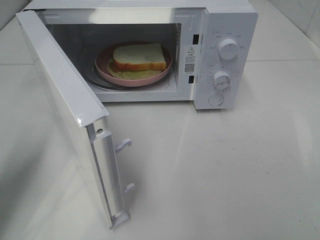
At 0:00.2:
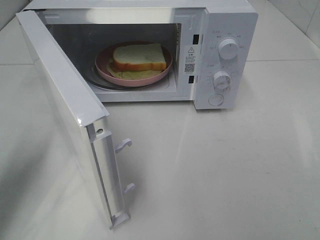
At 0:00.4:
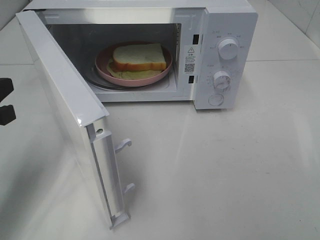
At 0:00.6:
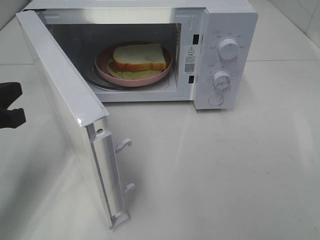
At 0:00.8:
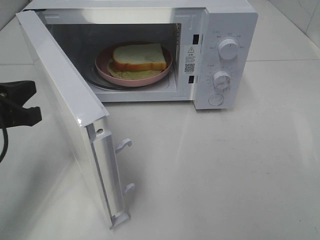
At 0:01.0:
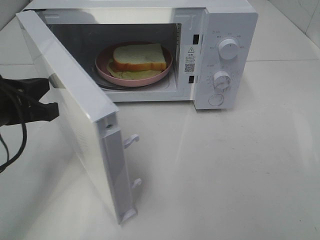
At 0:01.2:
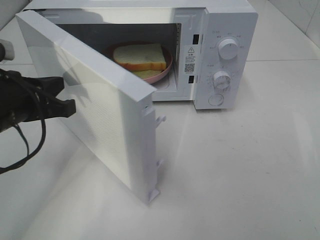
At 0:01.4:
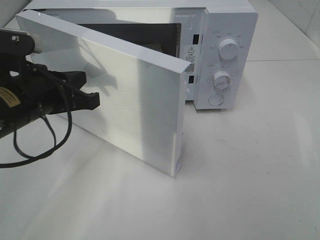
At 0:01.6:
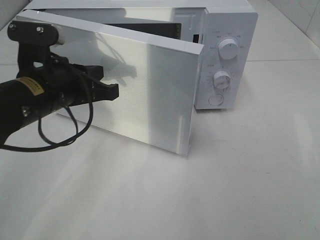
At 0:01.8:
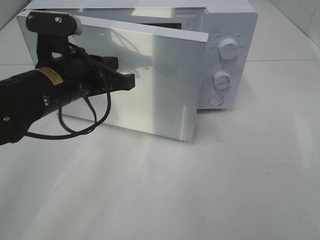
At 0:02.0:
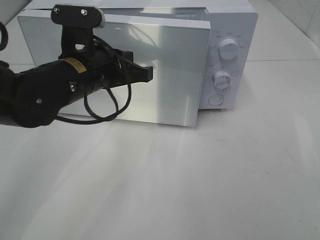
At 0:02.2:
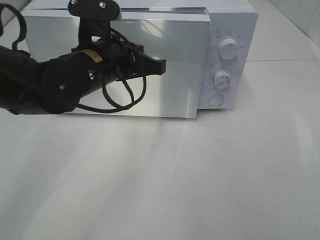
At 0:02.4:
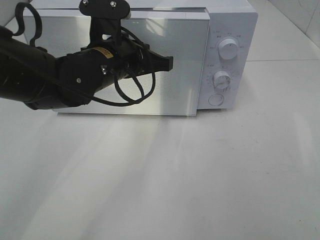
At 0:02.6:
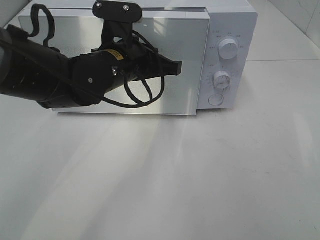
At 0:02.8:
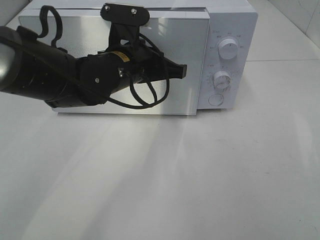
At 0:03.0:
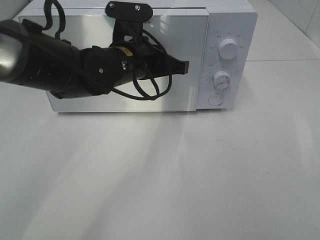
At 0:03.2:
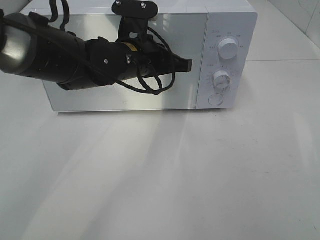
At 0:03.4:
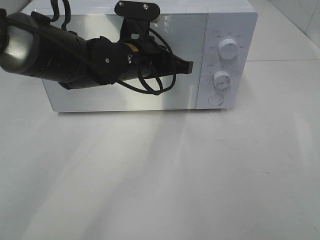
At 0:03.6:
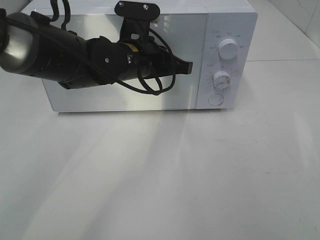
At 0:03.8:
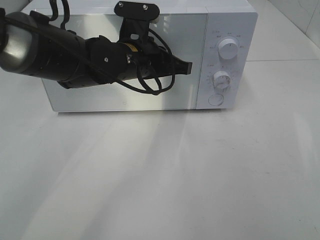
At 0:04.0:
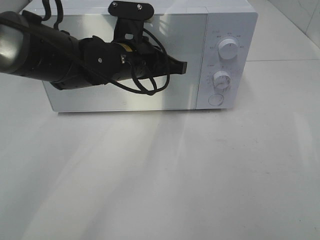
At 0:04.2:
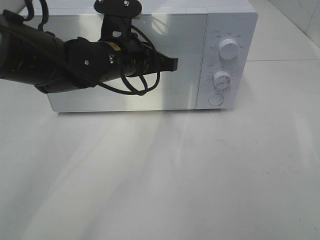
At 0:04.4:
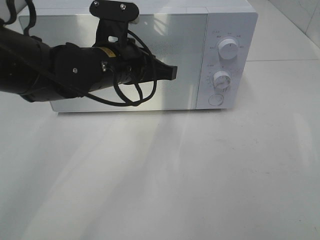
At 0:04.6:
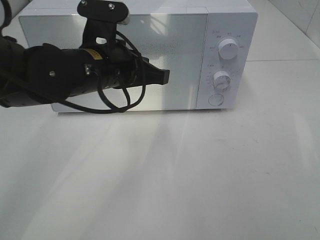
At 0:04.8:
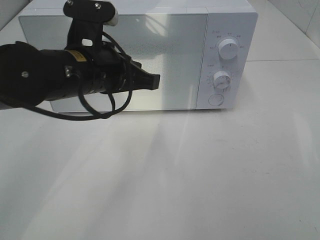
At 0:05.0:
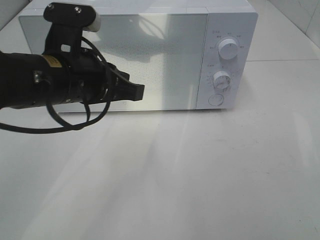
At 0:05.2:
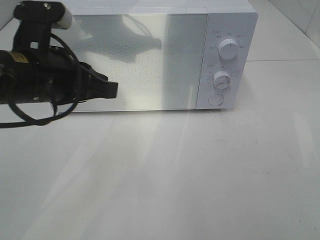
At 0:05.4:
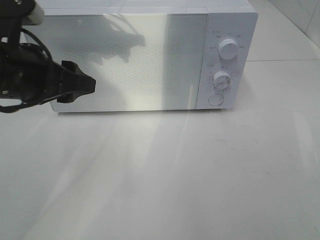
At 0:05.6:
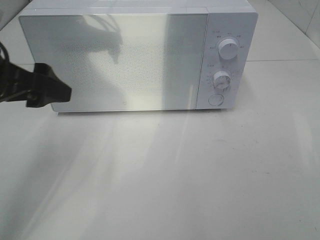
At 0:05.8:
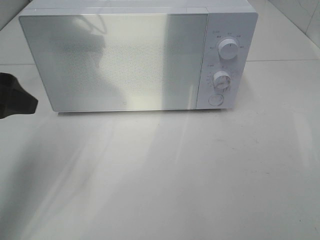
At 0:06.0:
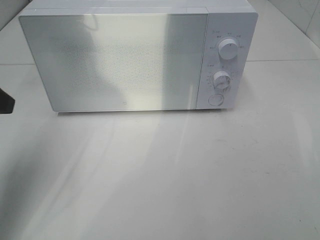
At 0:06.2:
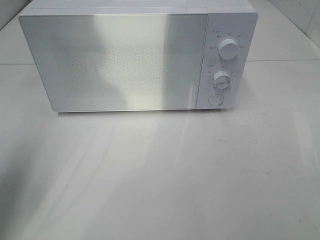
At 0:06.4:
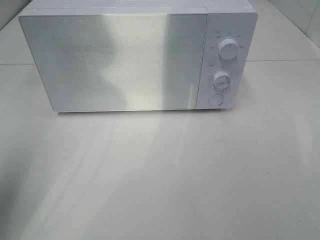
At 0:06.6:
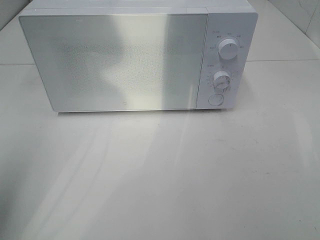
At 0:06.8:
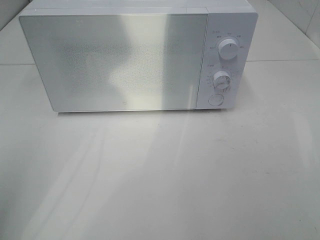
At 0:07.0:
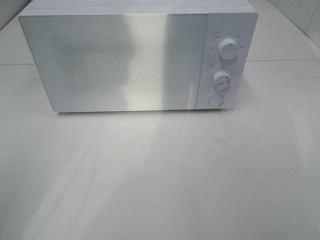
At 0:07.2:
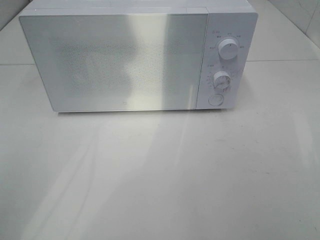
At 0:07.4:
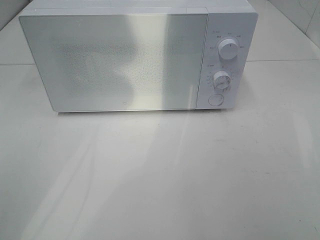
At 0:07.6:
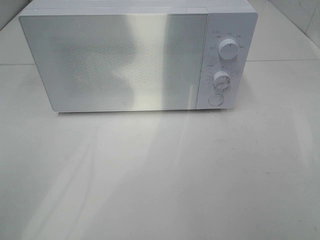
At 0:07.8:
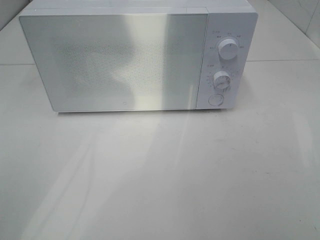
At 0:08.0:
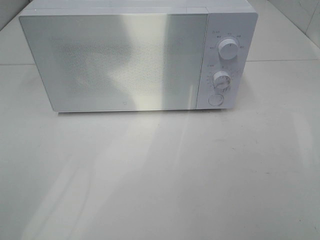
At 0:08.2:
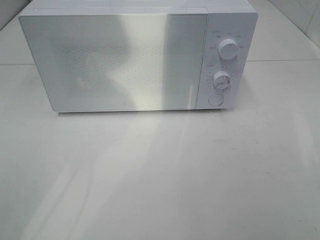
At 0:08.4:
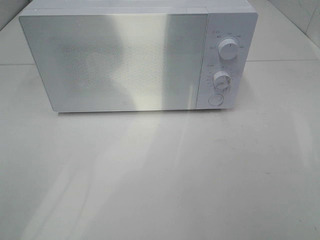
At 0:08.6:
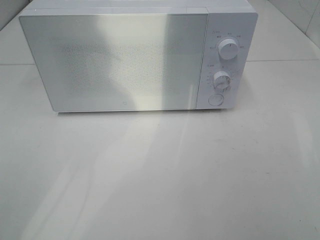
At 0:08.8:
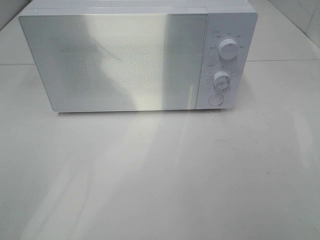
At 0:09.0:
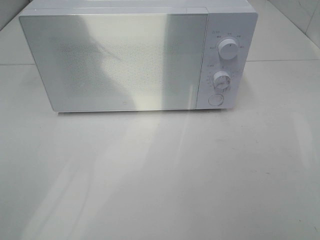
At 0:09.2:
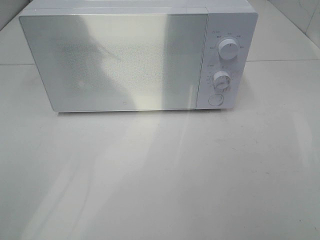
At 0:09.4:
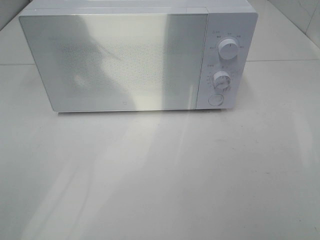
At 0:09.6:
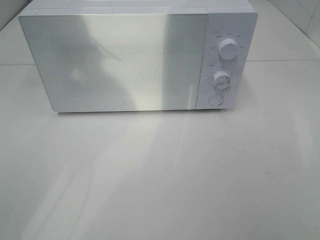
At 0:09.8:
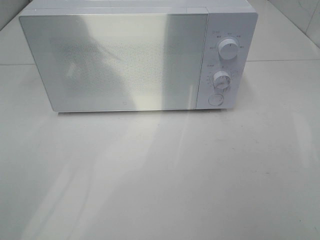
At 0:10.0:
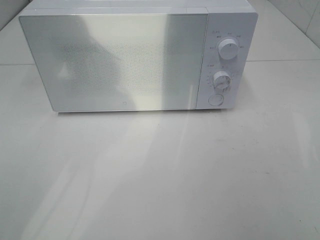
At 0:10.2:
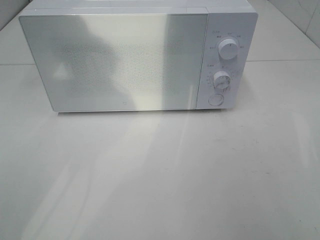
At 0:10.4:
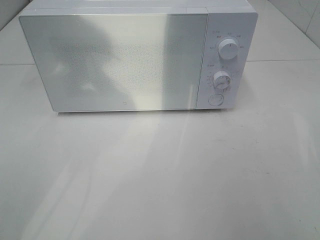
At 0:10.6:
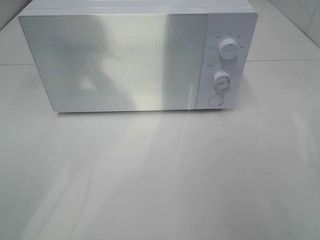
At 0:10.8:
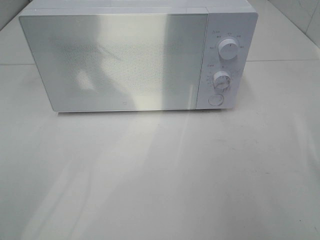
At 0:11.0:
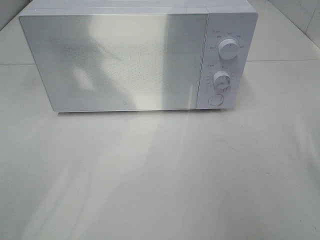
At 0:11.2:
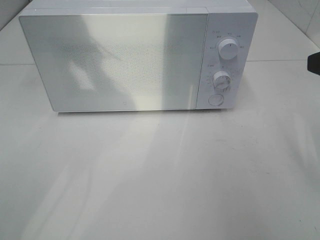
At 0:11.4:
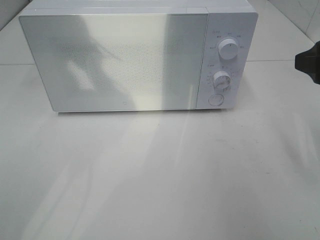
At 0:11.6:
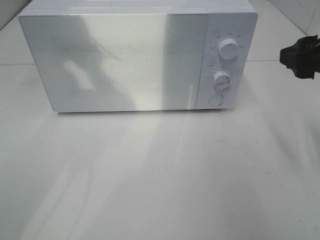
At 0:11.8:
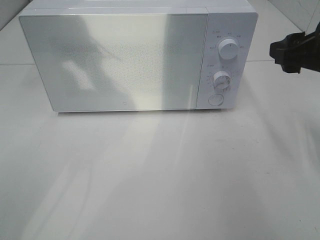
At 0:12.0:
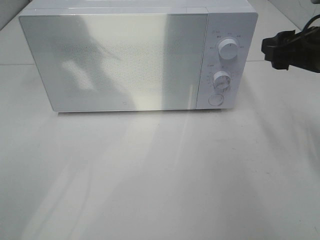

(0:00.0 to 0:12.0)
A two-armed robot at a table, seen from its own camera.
Task of the whole recording: Heat Sandwich.
Step, 0:00.0 - 0:04.4: Left hand: close the microwave door.
0:00.0 - 0:01.6: The left gripper heads to the right and forward, covering about 15 cm.
0:01.6 - 0:03.0: The left gripper goes about 15 cm to the right and forward.
0:03.0 - 0:04.4: There are only small adjustments of the grippers.
0:04.4 - 0:06.0: The left gripper goes roughly 25 cm to the left and backward, and opens its fingers.
0:06.0 - 0:07.6: The left gripper is displaced backward by about 20 cm.
0:07.6 - 0:09.0: The grippers make only small movements.
0:10.4 - 0:12.0: The right gripper heads forward and downward, covering roughly 20 cm.

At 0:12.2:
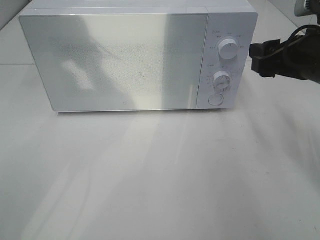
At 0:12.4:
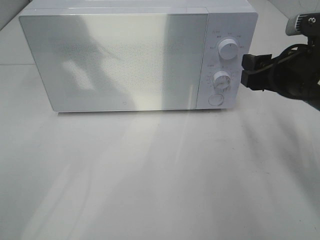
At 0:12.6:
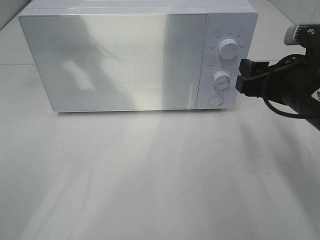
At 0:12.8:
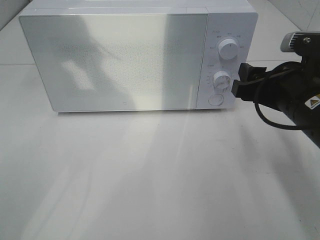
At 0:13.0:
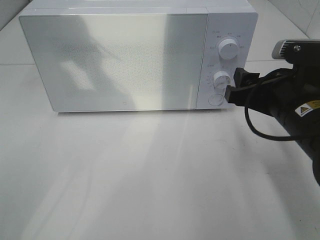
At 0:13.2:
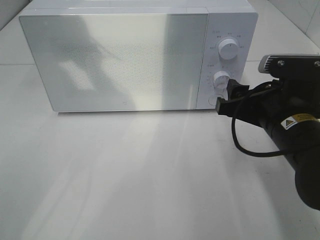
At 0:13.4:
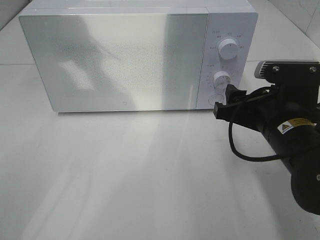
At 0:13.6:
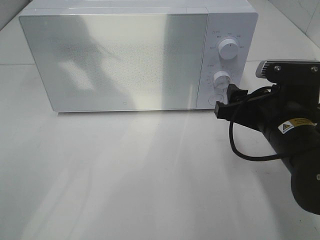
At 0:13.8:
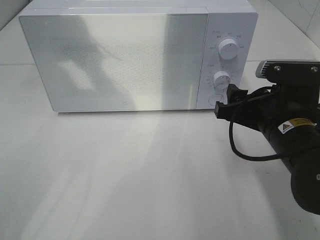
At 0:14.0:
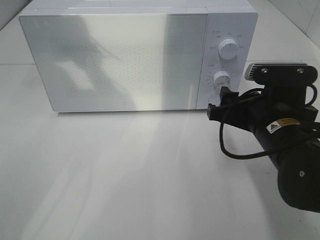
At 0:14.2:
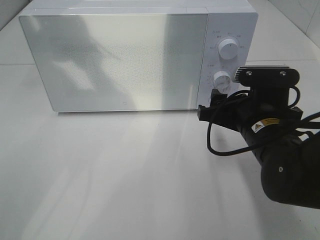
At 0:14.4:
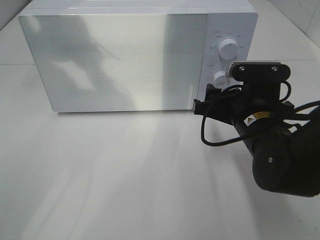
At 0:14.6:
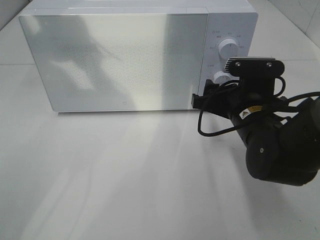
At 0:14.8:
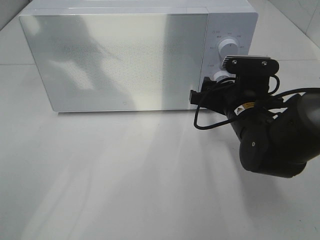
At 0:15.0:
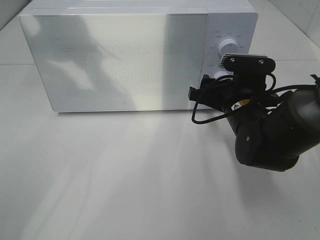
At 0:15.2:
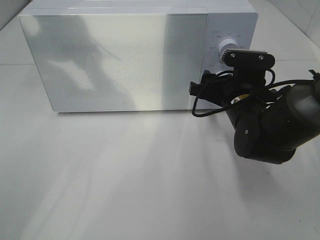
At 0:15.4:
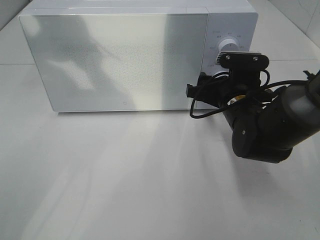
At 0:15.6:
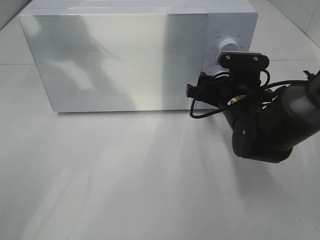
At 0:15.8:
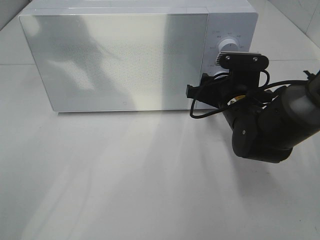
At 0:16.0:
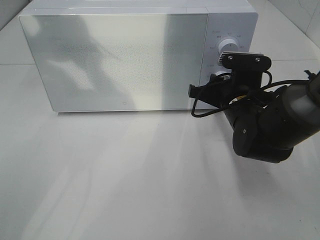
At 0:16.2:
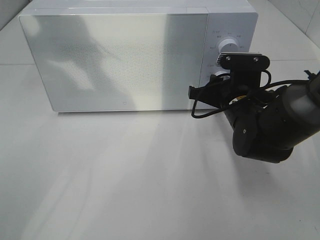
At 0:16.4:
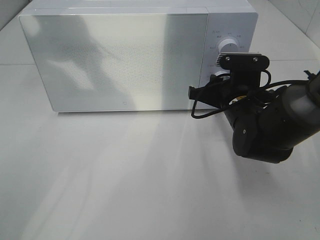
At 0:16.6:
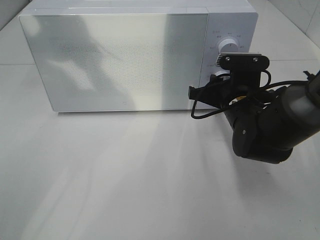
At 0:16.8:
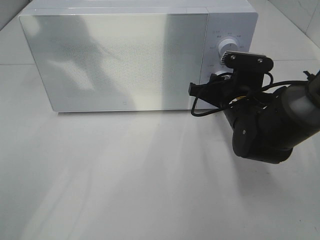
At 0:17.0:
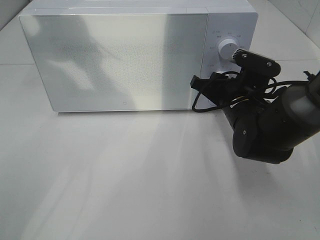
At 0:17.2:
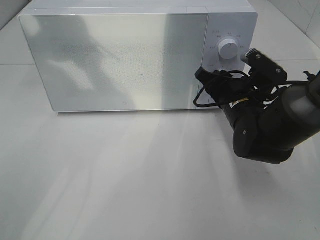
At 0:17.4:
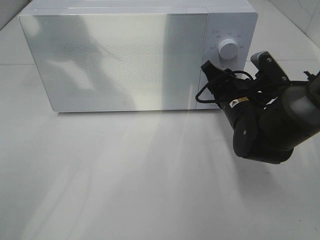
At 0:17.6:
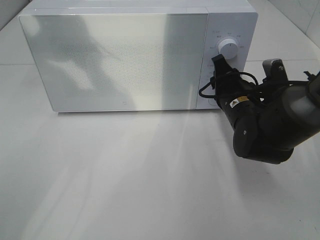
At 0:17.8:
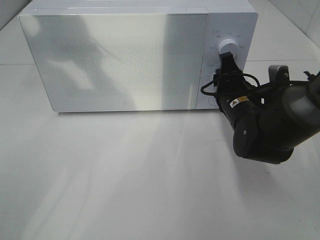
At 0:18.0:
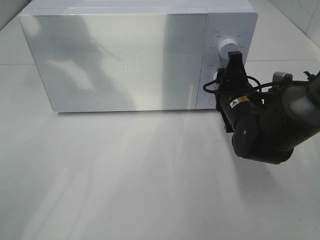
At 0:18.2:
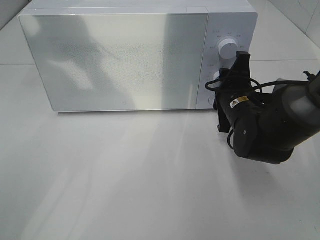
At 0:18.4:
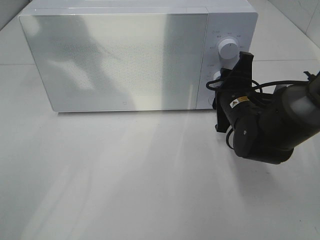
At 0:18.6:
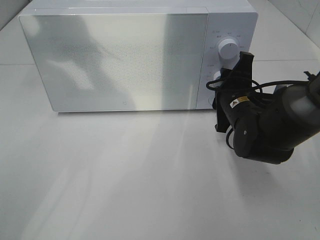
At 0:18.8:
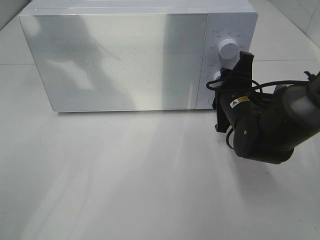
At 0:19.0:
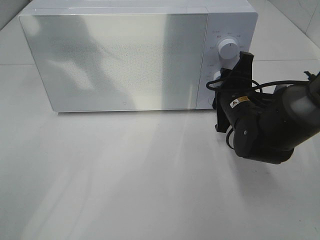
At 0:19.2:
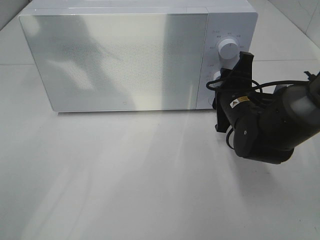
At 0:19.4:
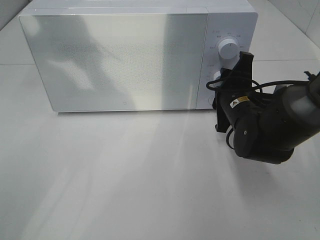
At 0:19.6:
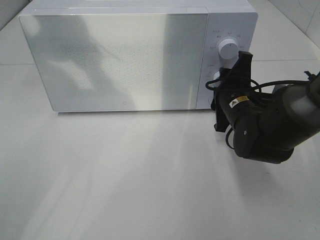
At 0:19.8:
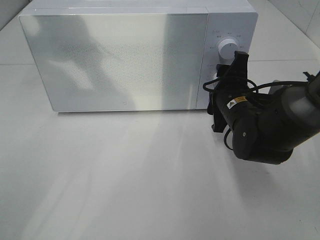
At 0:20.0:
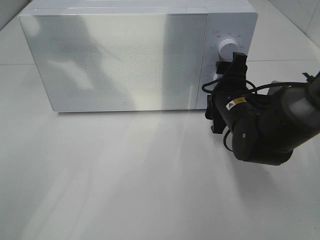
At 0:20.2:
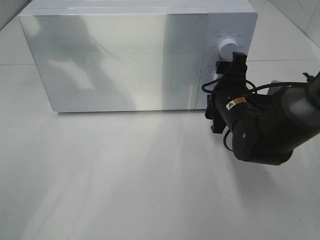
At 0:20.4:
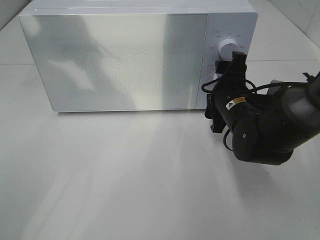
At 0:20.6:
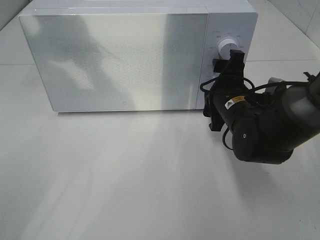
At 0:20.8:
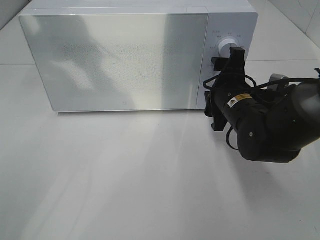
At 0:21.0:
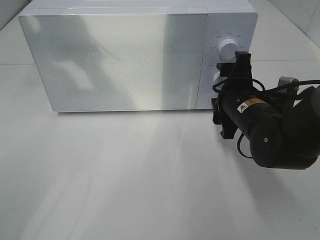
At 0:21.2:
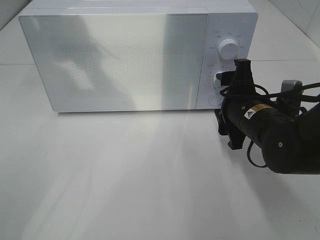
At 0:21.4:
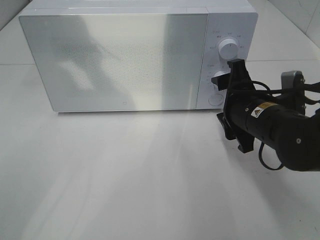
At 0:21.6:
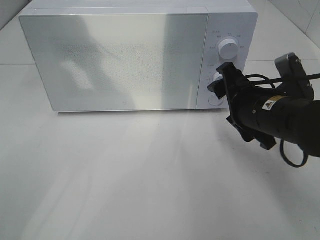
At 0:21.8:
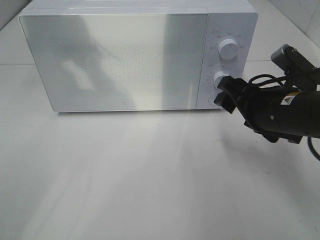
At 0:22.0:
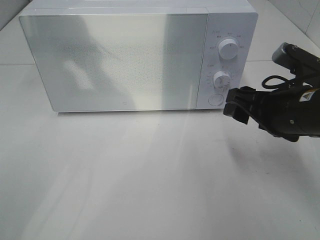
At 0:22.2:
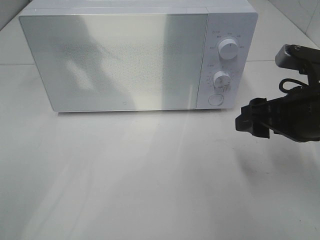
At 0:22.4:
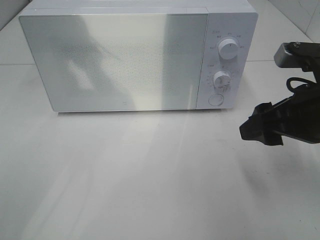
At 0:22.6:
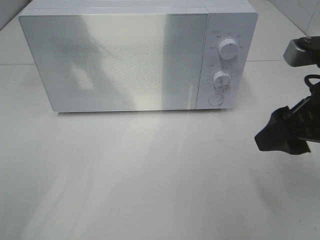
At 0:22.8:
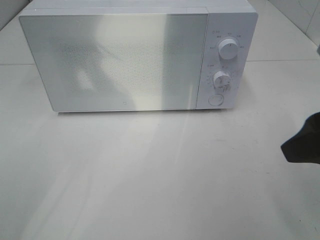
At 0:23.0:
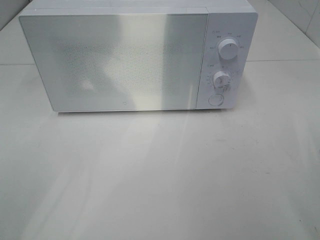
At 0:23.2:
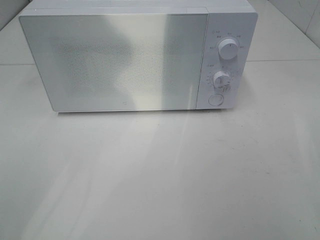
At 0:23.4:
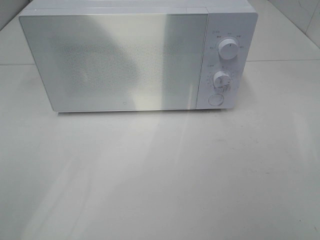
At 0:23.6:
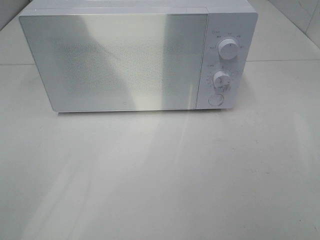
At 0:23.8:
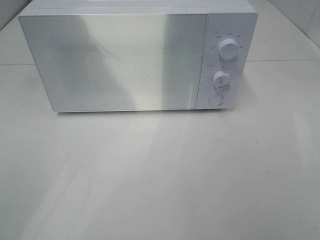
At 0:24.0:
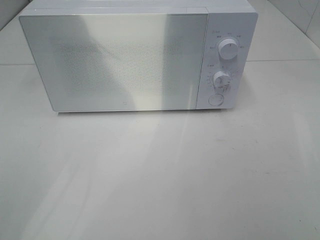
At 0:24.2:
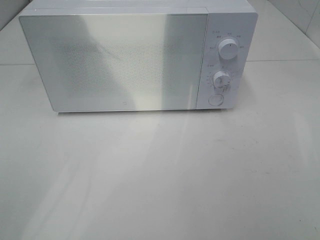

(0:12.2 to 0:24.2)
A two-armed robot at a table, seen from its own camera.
Task of the whole recording: Heat Sandwich.
Step, 0:12.2 - 0:20.0: Right hand: twist timer button.
0:12.2 - 0:13.8: The right gripper is displaced downward and to the left by some 10 cm.
0:13.8 - 0:15.2: The right gripper goes some 10 cm forward.
0:15.2 - 0:16.6: The right gripper closes.
0:18.2 - 0:19.8: The two grippers keep their place.
0:19.8 - 0:21.2: The grippers make only small movements.
0:21.2 - 0:22.6: The right gripper shifts approximately 15 cm upward, backward and to the right.
0:22.6 - 0:24.2: The right gripper moves backward and to the right, some 20 cm.
